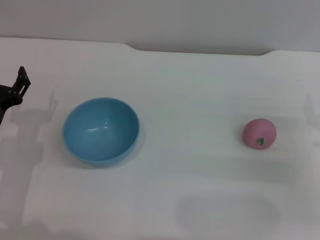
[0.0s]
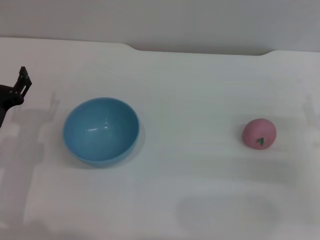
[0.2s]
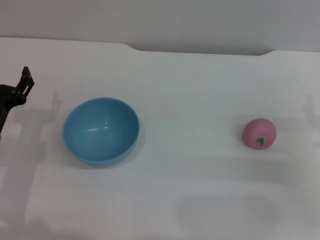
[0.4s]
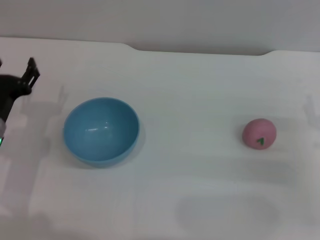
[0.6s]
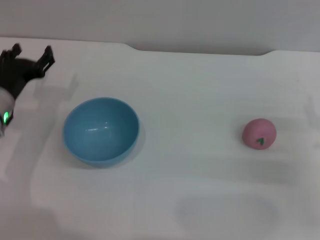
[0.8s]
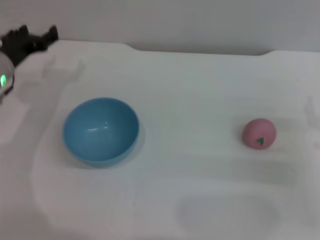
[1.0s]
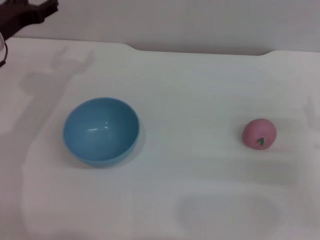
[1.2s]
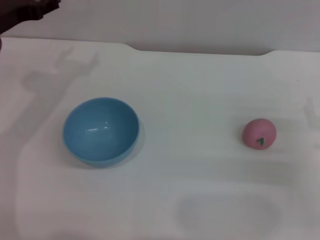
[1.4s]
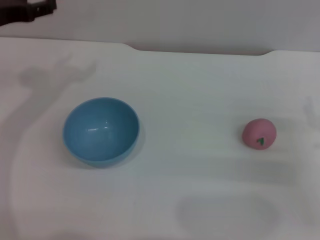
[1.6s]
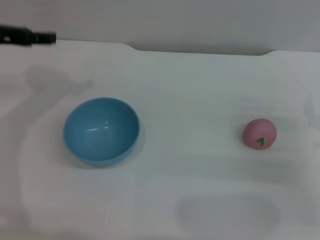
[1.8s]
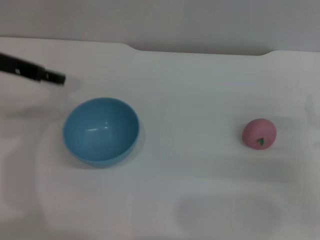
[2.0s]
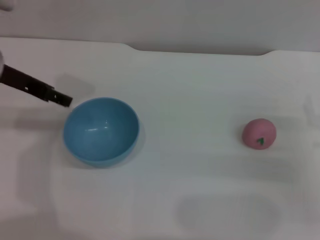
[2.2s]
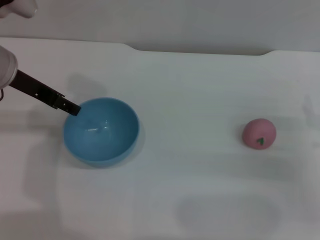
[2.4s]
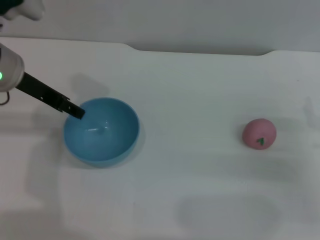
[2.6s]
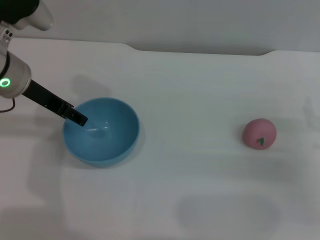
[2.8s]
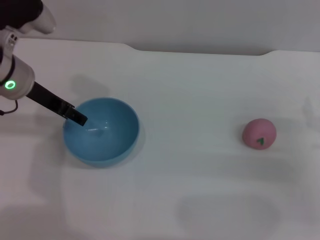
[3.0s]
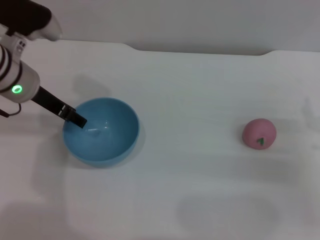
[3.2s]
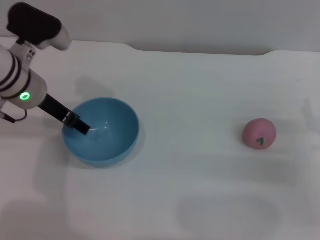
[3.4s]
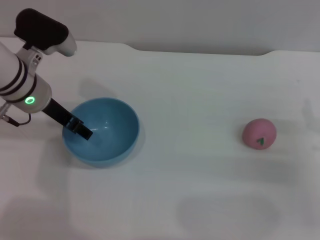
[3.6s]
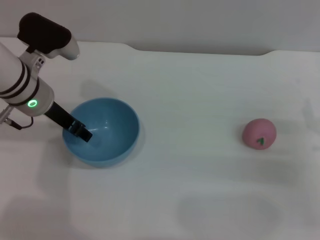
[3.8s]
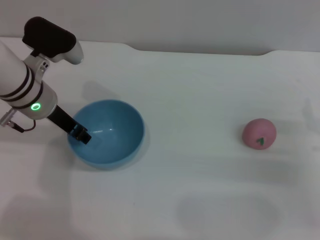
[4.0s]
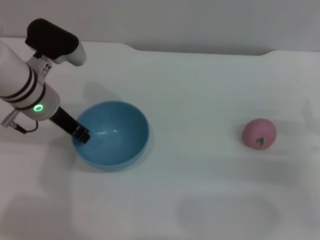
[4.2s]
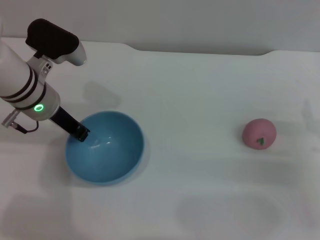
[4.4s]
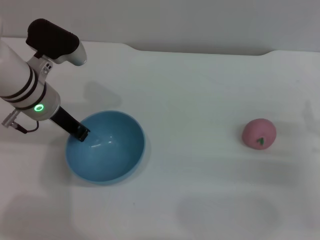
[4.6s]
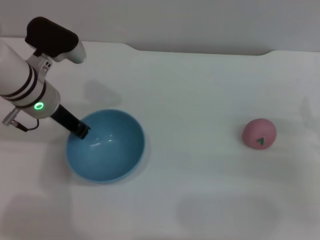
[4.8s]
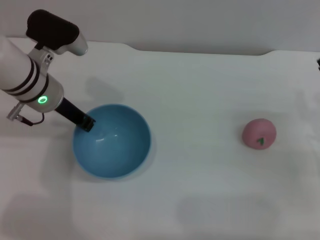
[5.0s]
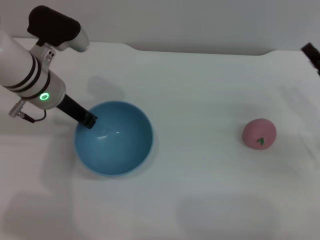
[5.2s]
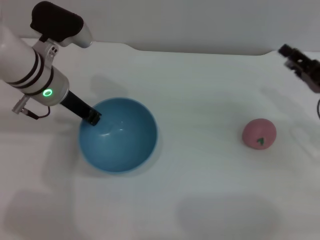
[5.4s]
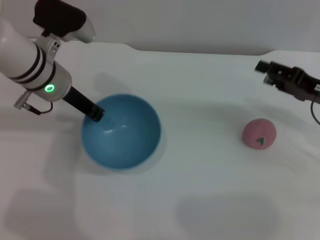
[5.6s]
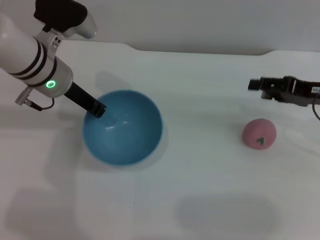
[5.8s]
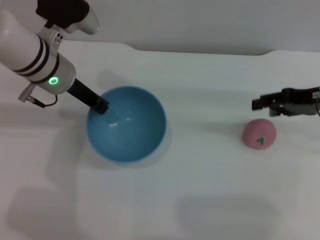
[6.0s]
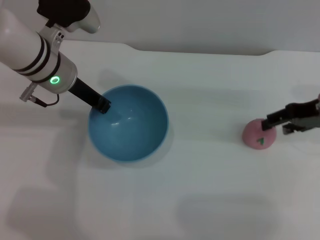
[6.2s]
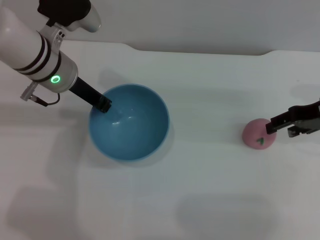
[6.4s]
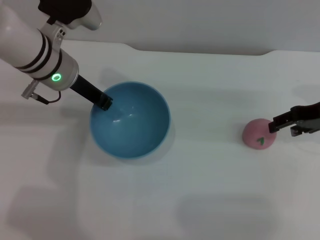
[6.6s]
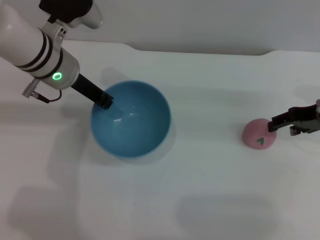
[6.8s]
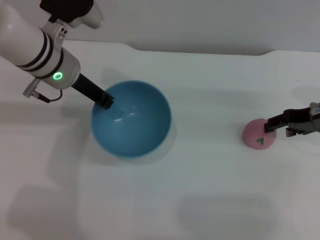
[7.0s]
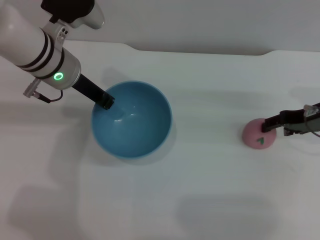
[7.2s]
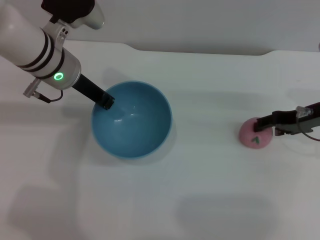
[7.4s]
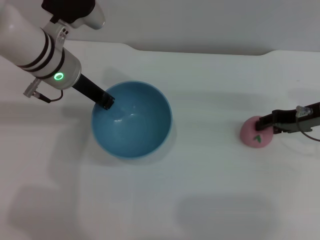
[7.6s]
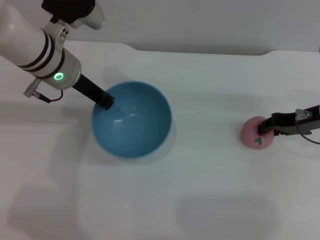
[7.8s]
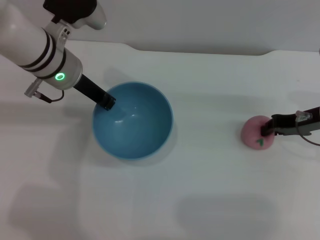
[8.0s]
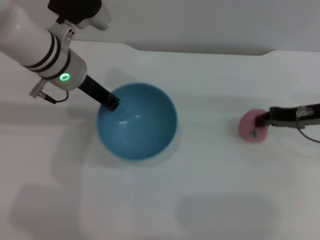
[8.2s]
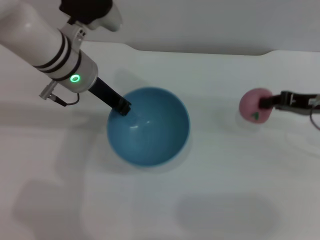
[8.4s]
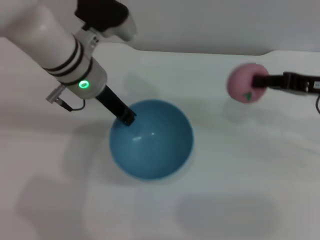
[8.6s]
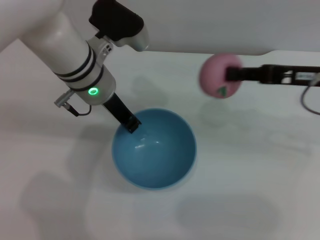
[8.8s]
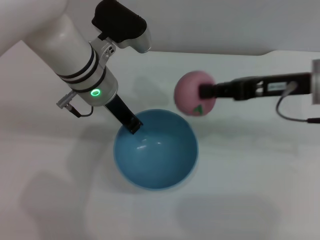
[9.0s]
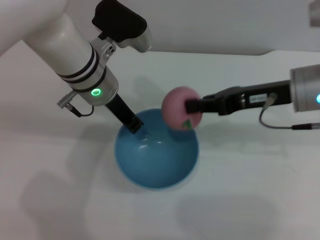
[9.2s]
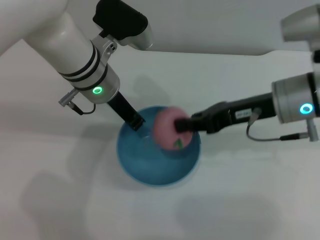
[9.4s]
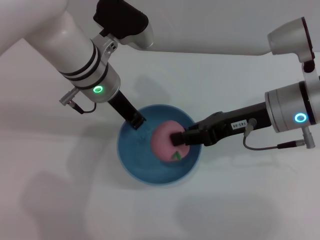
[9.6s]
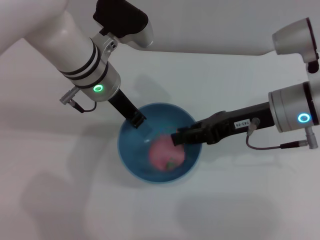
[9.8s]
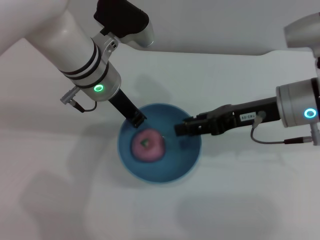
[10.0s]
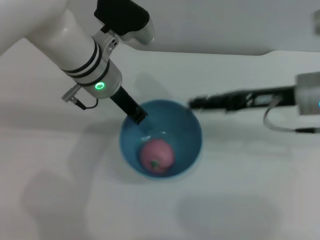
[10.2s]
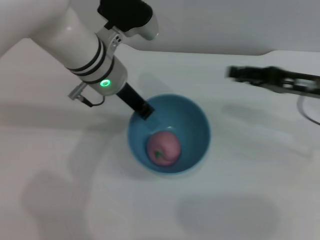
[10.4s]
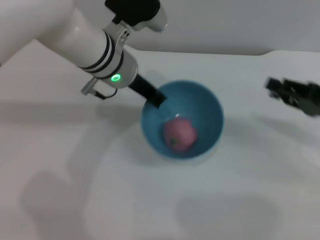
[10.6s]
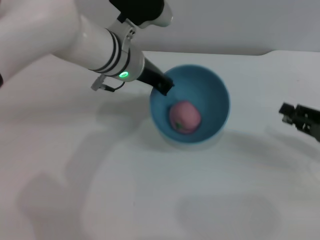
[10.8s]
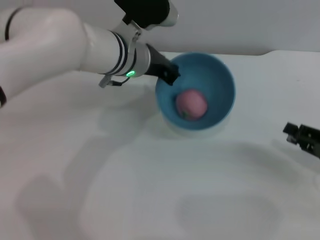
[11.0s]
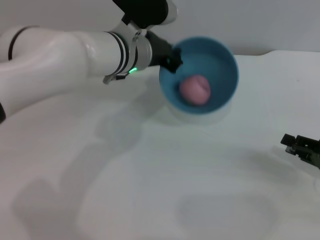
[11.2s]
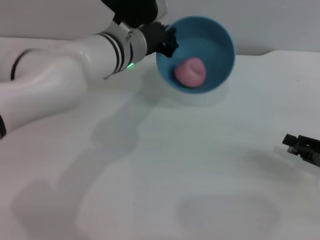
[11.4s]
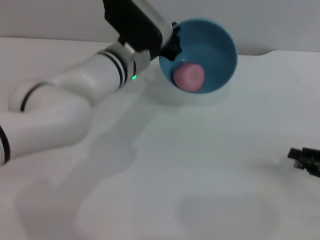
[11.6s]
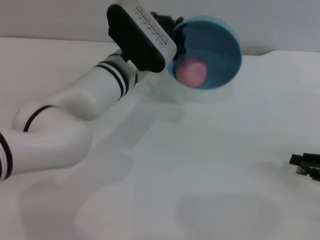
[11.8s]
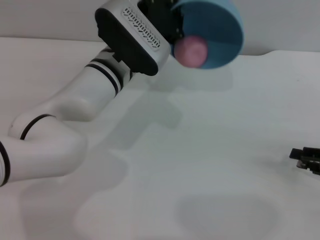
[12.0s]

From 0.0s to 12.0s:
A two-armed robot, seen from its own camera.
Task of the whole recording: put the peach into the blue bowl and pour it out repeatedly.
Step, from 0.0s to 5.8s: Pick up the bowl with the left gripper.
Step, from 6.2s to 8.4s: Pick up the peach with the right gripper.
Step, from 8.6s to 10.0s: Place the peach into the bowl.
From 0.0s to 1.6s: The left gripper travels upward and forward by about 20 cm.
From 1.6s to 3.0s: The left gripper shifts roughly 10 cm to the right.
From 3.0s to 4.4s: The left gripper shifts by about 5 cm, and closes up.
From 4.4s to 6.0s: The left gripper closes. The right gripper shifts about 15 cm upward and forward.
From 6.0s to 7.6s: The right gripper shifts approximately 5 cm downward.
From 7.6s to 9.0s: The left gripper moves to the right, roughly 5 cm. Meanwhile the right gripper travels upward and to the left by about 10 cm, and closes its fingers.
From 9.0s to 10.4s: The right gripper travels to the right by about 5 cm, and opens up.
From 10.4s to 12.0s: The right gripper is displaced to the right, backward and downward by some 15 cm.

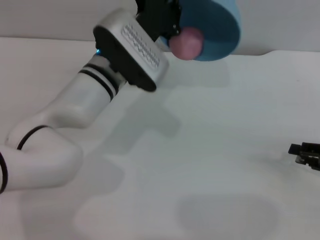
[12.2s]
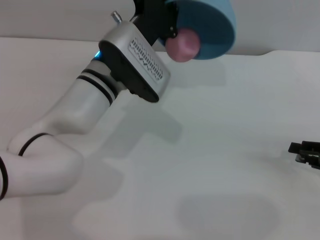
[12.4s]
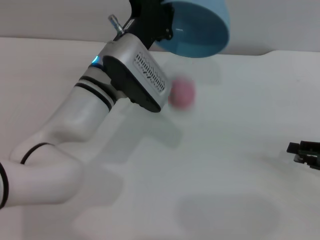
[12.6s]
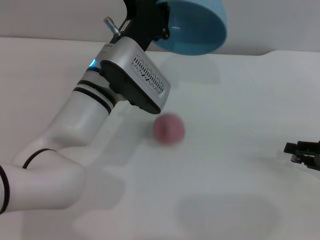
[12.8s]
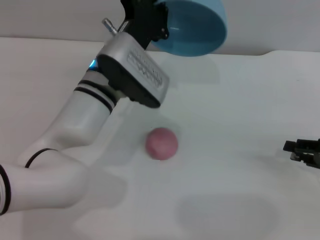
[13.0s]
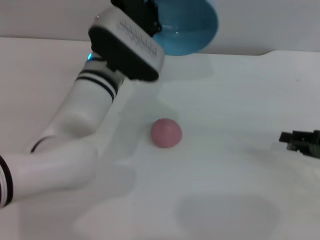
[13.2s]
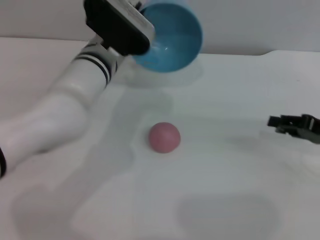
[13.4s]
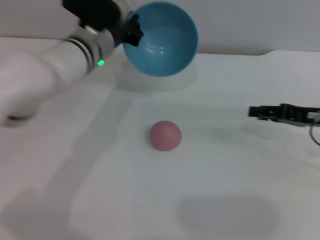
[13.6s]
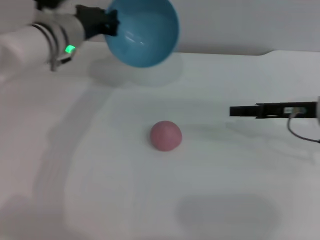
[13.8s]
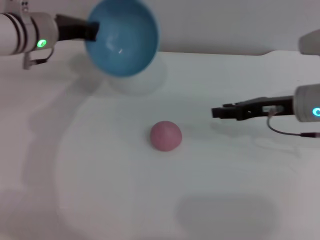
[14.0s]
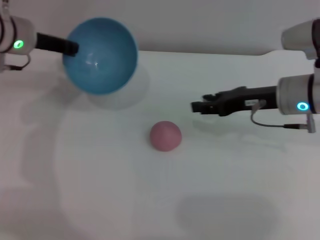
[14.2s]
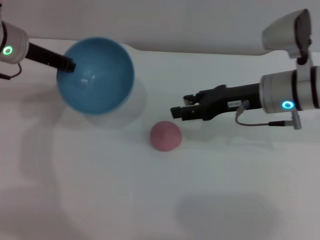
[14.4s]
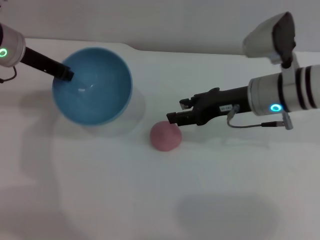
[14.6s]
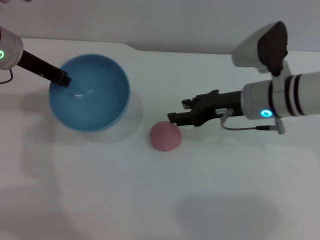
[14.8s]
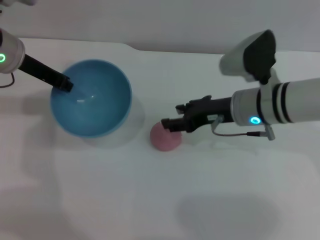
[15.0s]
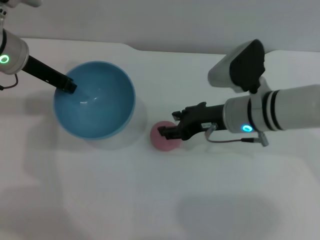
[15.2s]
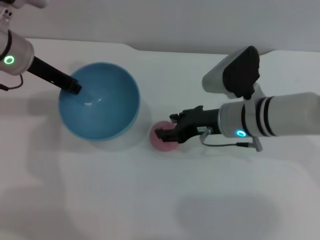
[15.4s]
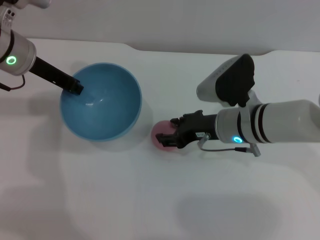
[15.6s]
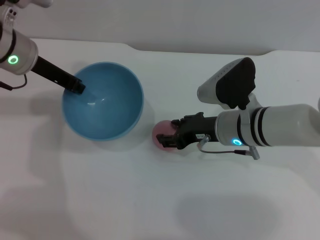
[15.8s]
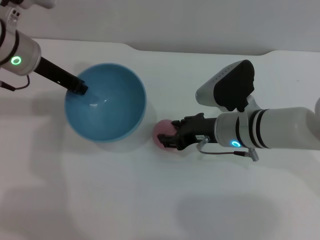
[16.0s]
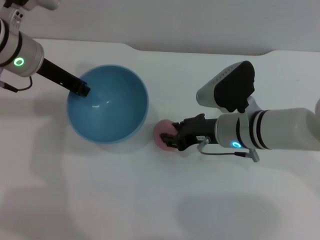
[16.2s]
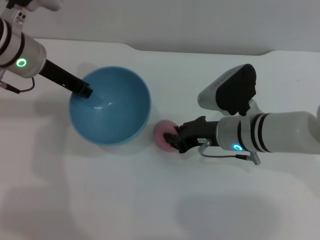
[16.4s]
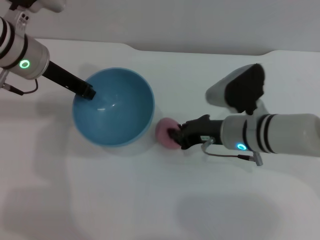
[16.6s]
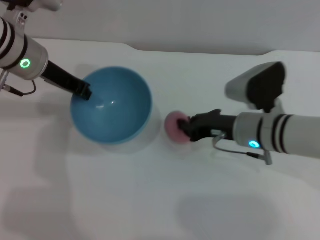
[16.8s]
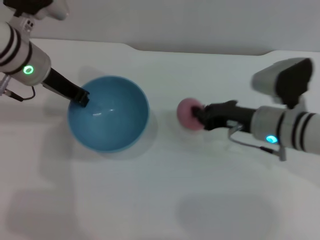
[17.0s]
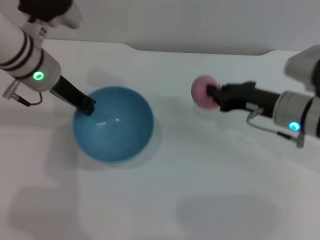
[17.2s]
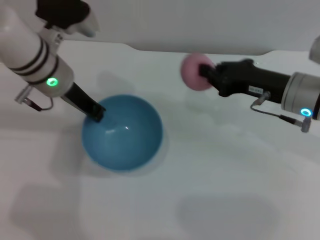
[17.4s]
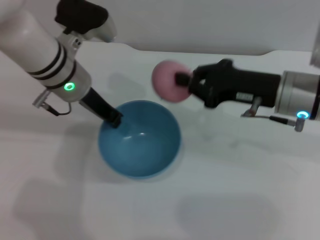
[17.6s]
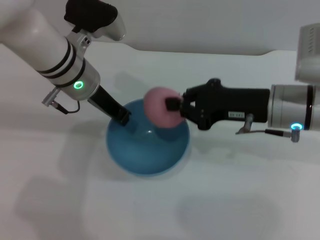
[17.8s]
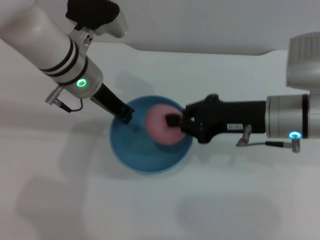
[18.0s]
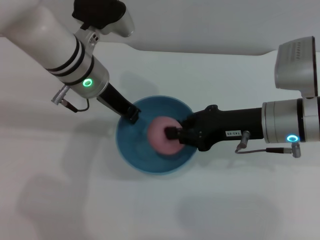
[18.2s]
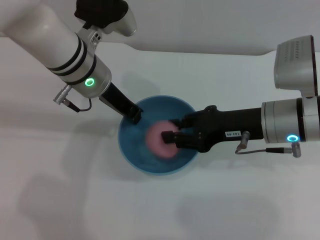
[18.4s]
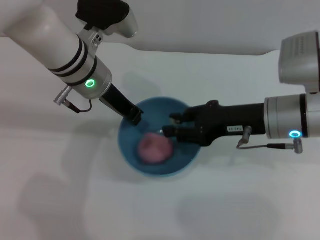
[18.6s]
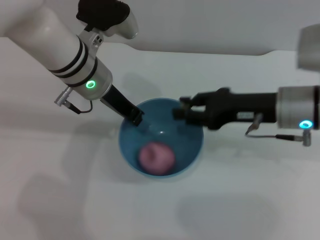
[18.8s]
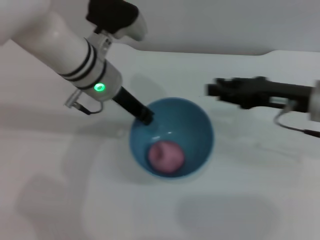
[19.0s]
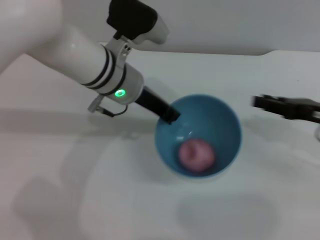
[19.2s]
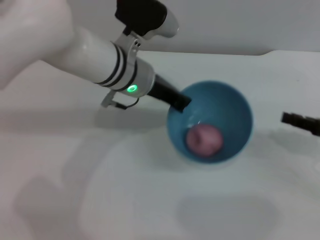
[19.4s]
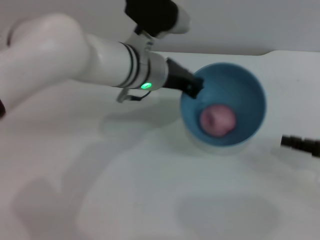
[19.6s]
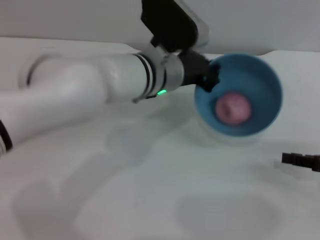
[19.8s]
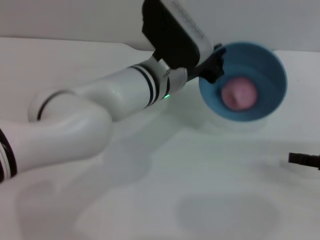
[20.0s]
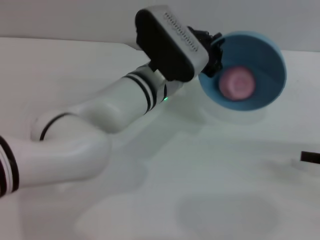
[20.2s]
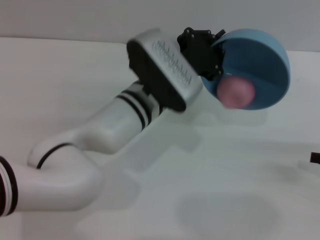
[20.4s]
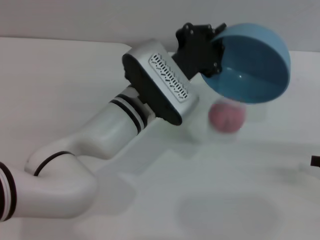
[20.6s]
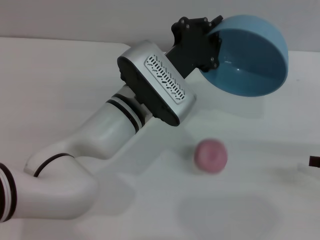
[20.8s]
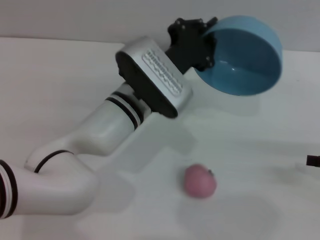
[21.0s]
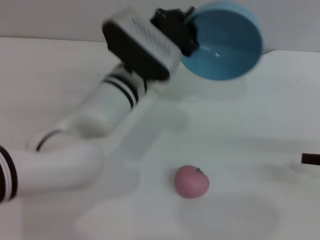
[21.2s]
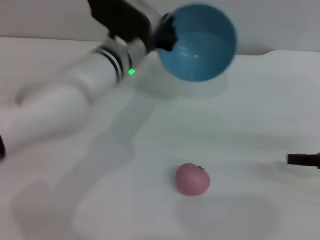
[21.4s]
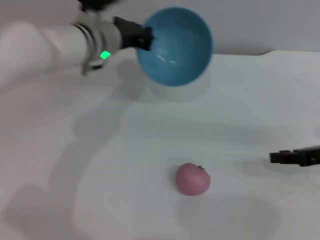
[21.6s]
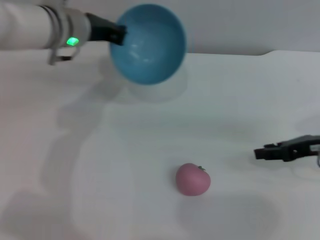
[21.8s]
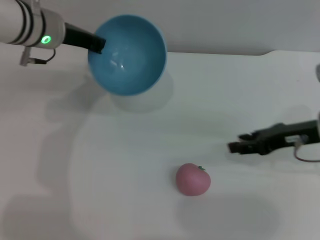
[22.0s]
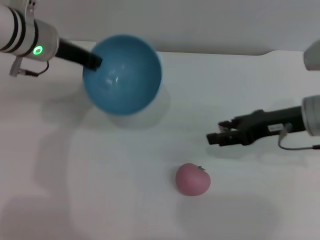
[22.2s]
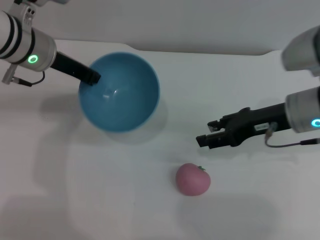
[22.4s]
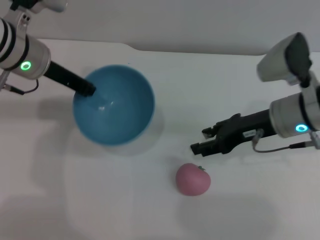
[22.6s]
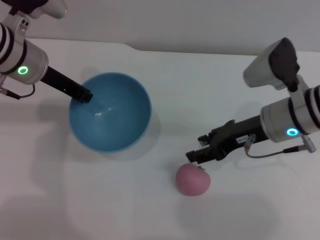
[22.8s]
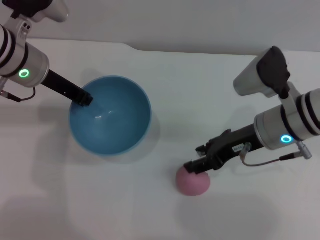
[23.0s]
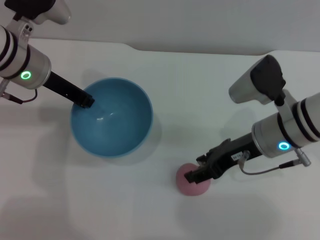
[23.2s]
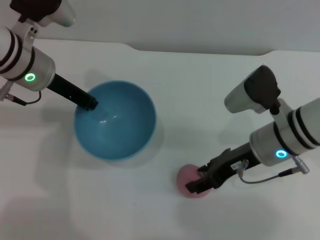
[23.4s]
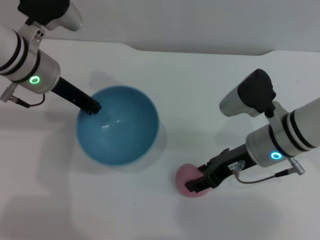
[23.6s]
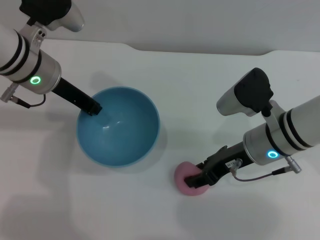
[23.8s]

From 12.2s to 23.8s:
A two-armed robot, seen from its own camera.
Task of the whole recording: put the peach into the blue bowl and pour it out repeatedly.
Step, from 13.0s to 17.0s: Pick up the peach with the right gripper.
Step, from 17.4s to 18.8s: Place the peach into the bowl.
Step, from 19.0s to 21.0s: Pour the peach out of bowl.
From 12.2s to 13.6s: The right gripper goes approximately 10 cm to the left and forward, while the left gripper changes place by about 5 cm.
From 13.6s to 15.0s: The right gripper shifts some 15 cm to the left. Meanwhile the left gripper travels to the left and upward by some 15 cm.
From 15.0s to 16.6s: The right gripper closes its fingers.
From 16.6s to 18.0s: The left gripper travels to the right by approximately 10 cm, while the right gripper heads upward, covering about 5 cm.
From 18.0s to 19.4s: The right gripper is displaced to the right by some 15 cm, and opens up, while the left gripper shifts some 5 cm to the right.
From 19.4s to 21.0s: The left gripper shifts by some 5 cm.
From 21.0s to 22.4s: The right gripper goes about 20 cm to the left and forward, and opens up. Meanwhile the left gripper is displaced to the left and upward by about 15 cm.
From 22.4s to 23.8s: The right gripper travels to the left by roughly 5 cm.
